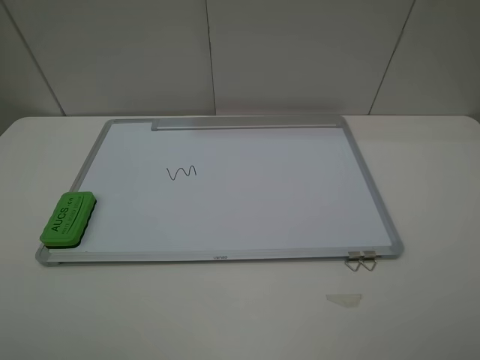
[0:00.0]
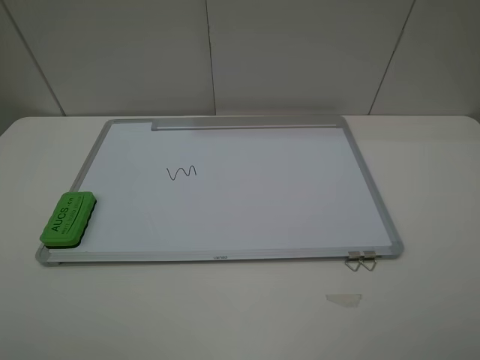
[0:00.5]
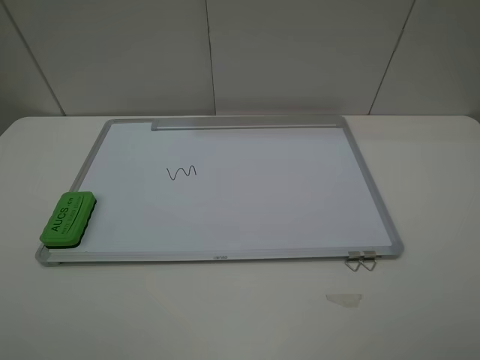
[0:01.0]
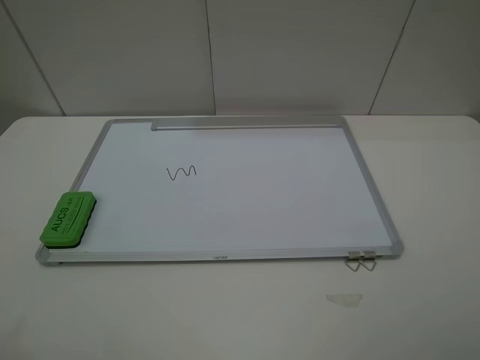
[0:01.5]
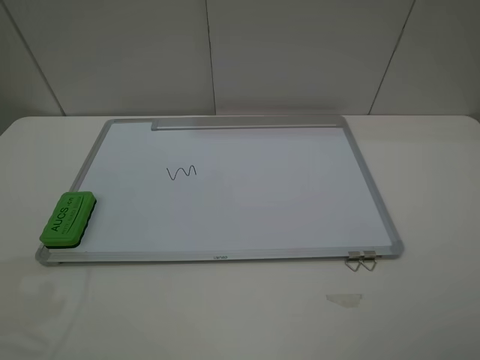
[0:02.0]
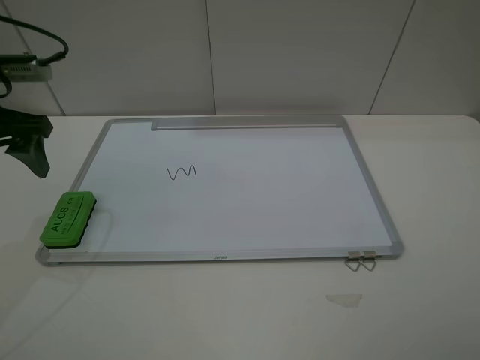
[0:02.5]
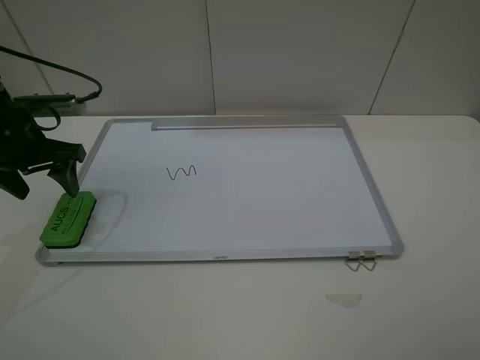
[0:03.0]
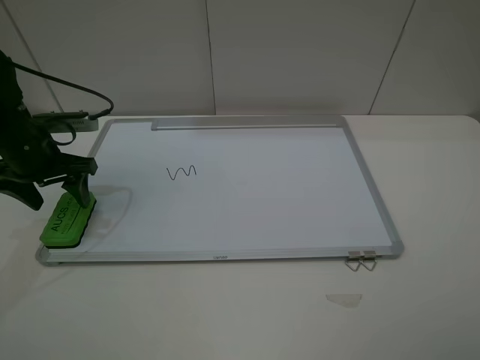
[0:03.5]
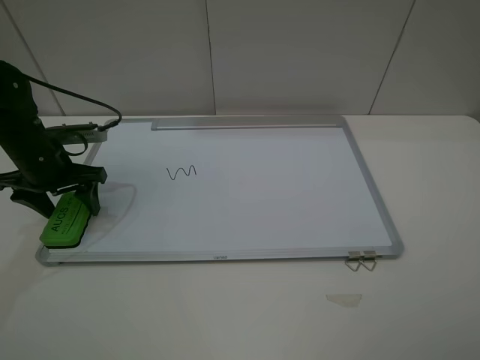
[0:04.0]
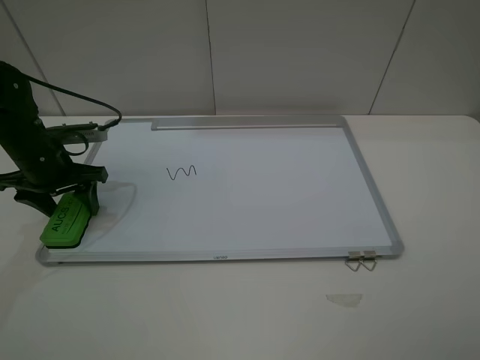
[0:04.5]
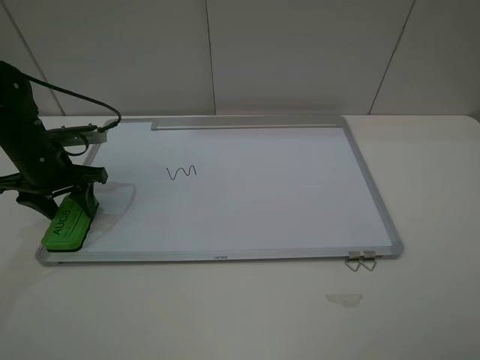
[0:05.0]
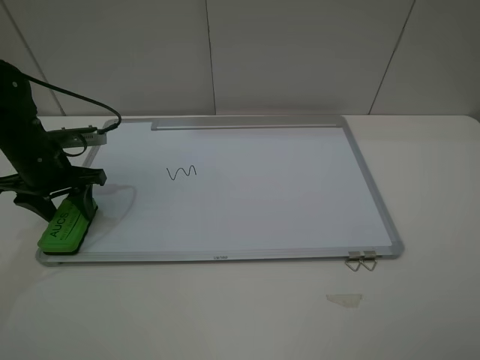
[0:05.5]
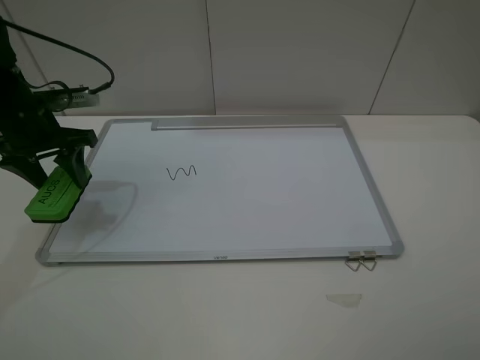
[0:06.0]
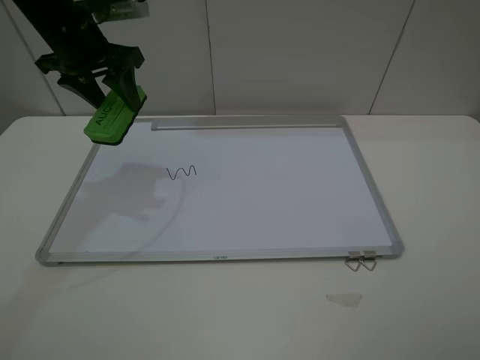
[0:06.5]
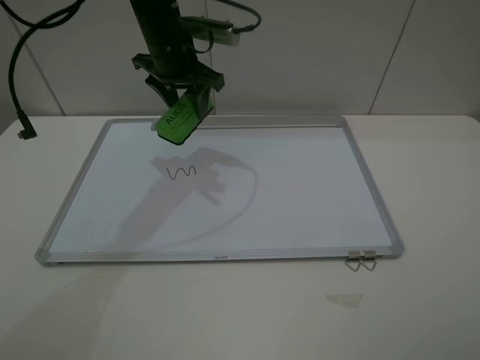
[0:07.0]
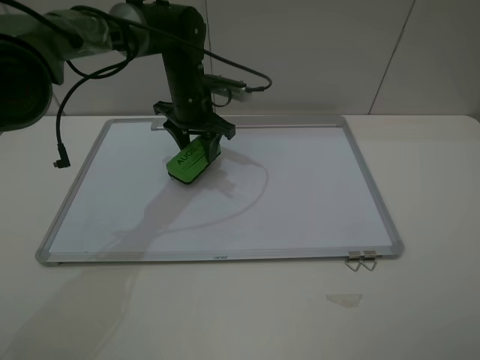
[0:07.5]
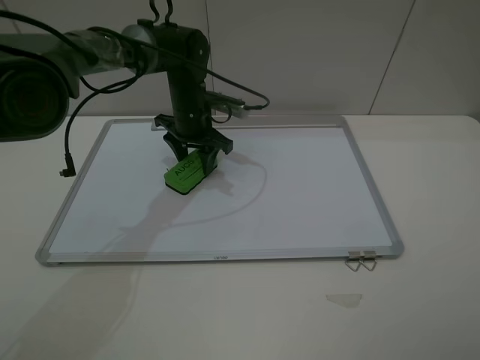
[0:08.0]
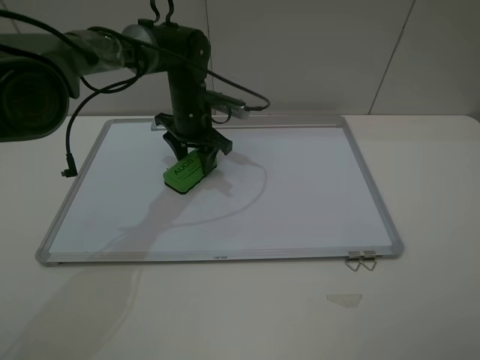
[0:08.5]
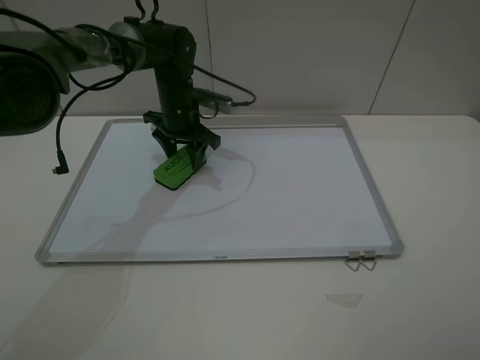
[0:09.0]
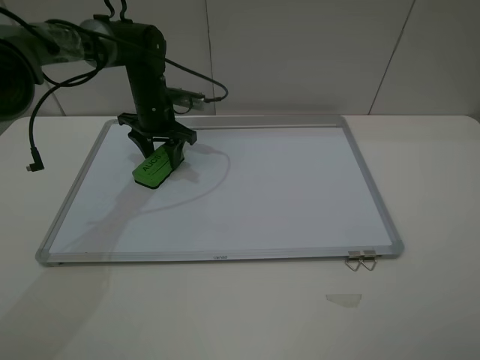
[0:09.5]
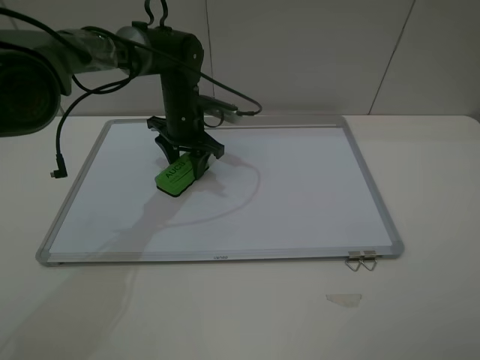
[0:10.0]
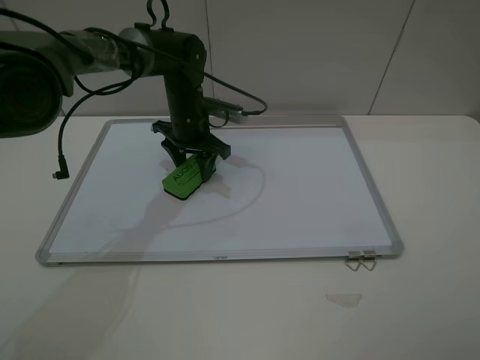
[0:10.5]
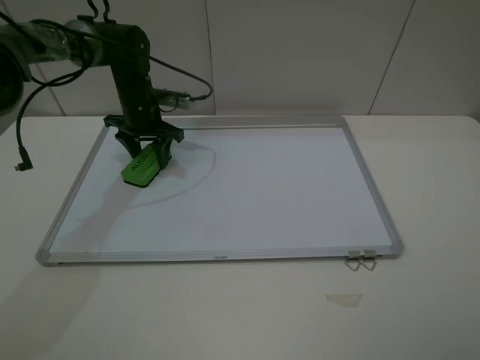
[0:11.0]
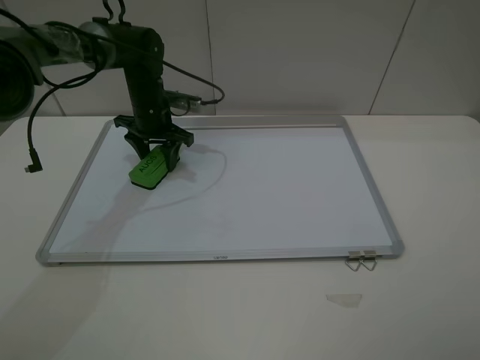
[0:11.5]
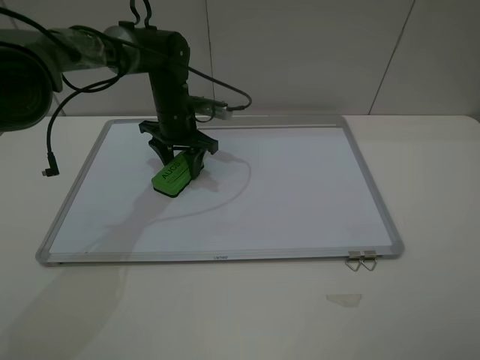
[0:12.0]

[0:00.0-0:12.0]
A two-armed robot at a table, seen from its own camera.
Step, 0:00.0 to 0:04.5: Grasp the eraser with the left gripper.
0:02.0 to 0:04.0: The left gripper travels downward and forward by roughly 20 cm.
0:04.0 to 0:06.0: The left gripper goes roughly 5 cm upward, and closes its fingers.
0:06.0 to 0:08.0: The left gripper goes some 25 cm to the right and forward.
0:10.0 to 0:12.0: The left gripper moves roughly 10 cm to the left and comes back.

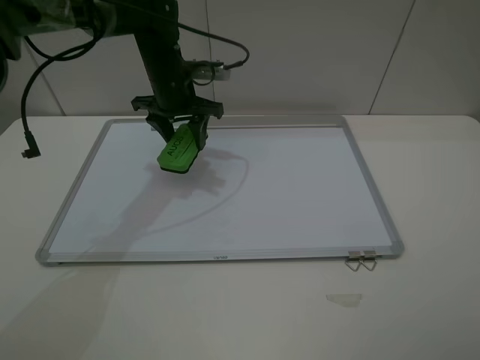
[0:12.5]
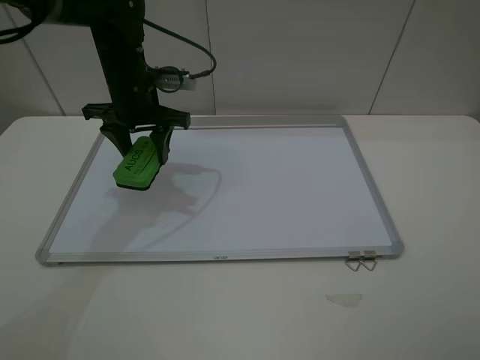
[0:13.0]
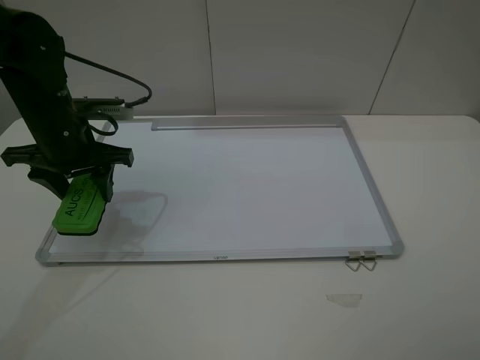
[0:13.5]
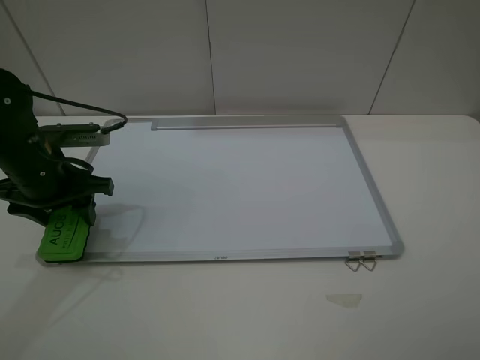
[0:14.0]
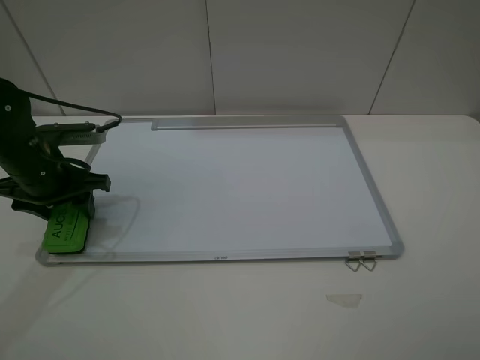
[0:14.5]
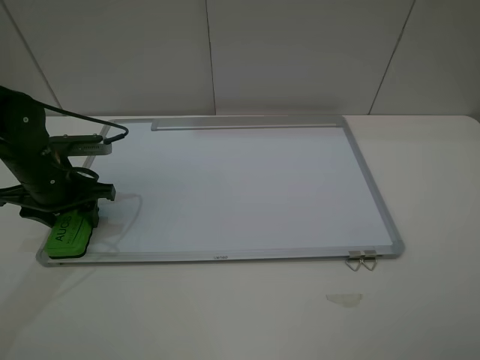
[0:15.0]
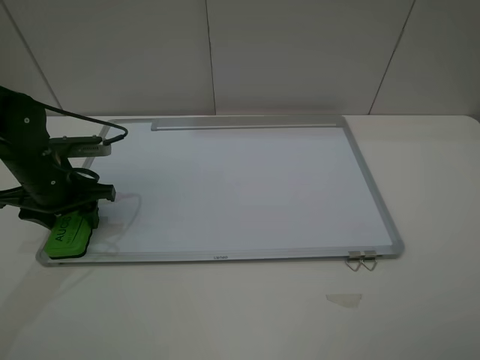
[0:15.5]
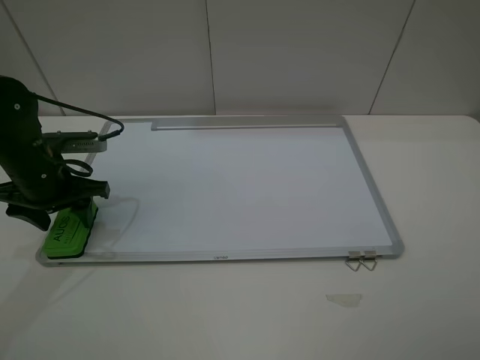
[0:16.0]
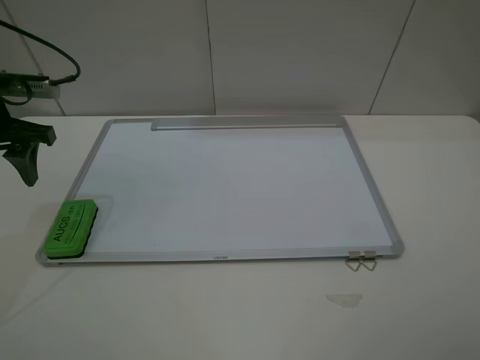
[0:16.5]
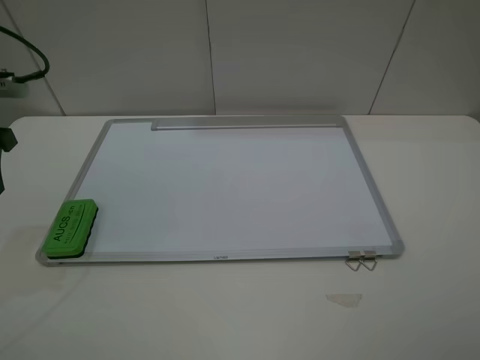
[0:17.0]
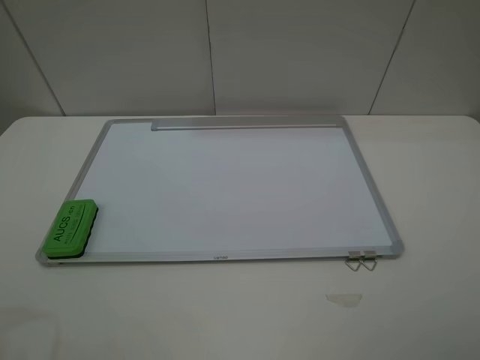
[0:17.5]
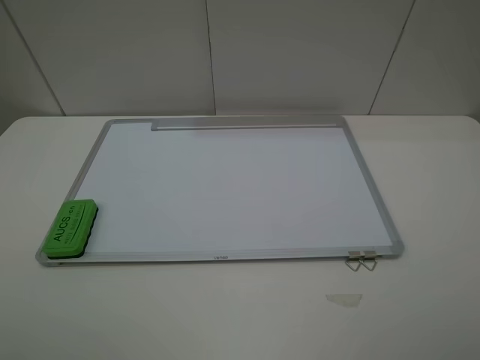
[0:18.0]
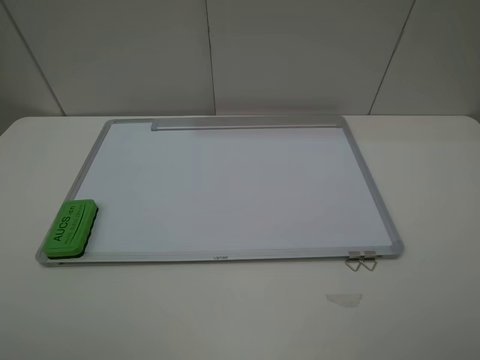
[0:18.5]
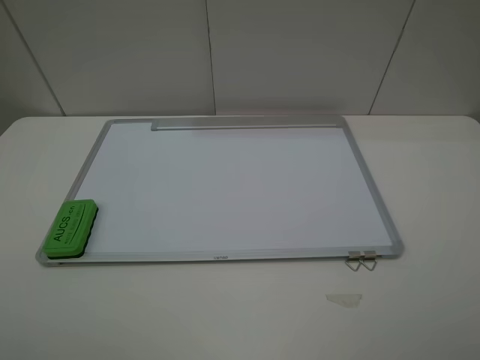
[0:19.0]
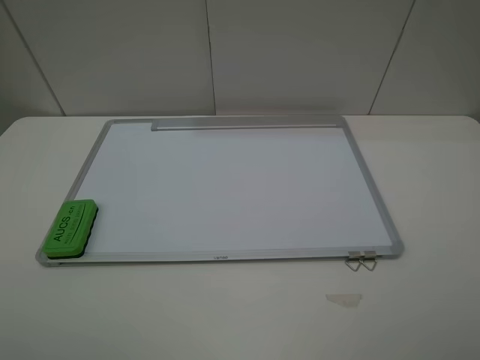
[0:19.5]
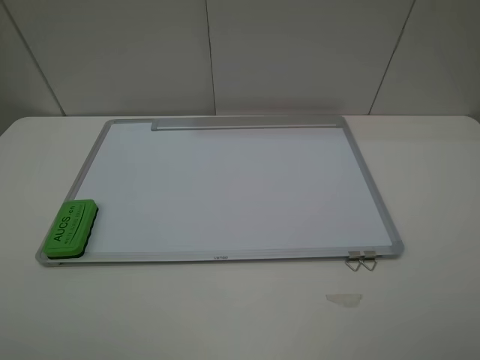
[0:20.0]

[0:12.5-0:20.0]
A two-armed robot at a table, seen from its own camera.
Step, 0:12.5 to 0:16.0: Place the eraser with the left gripper.
0:12.5 to 0:14.5: The left gripper is displaced to the left and backward by approximately 20 cm.
0:14.5 to 0:16.5: The left gripper is displaced upward and to the left by some 10 cm.
0:16.5 to 0:18.0: The left gripper moves backward, approximately 25 cm.
